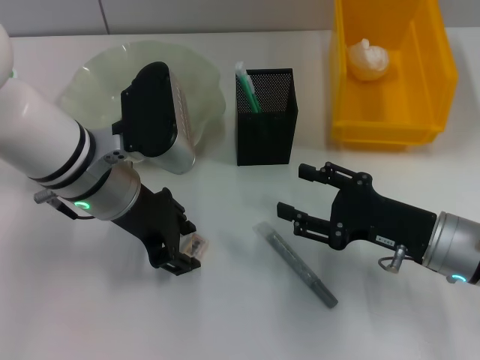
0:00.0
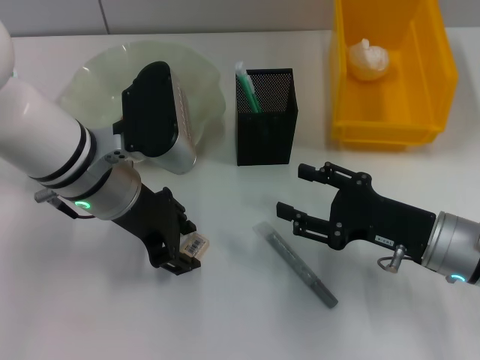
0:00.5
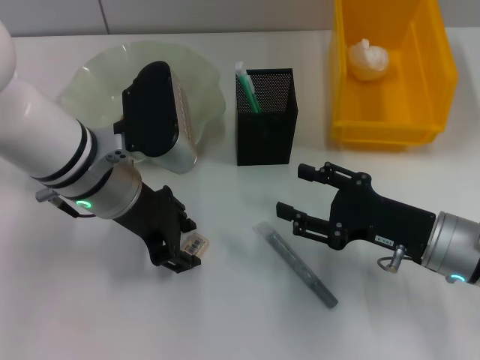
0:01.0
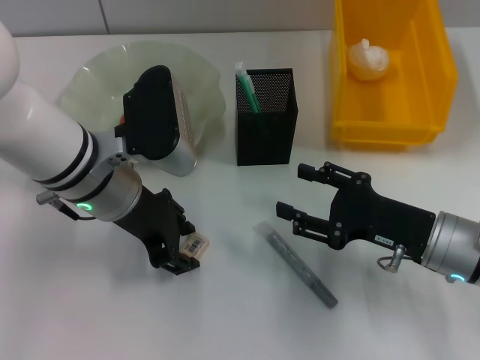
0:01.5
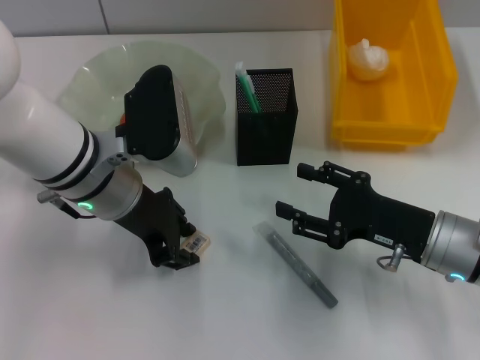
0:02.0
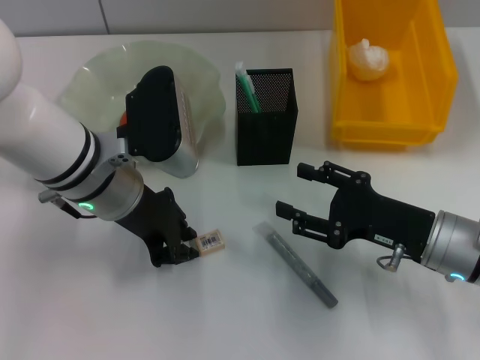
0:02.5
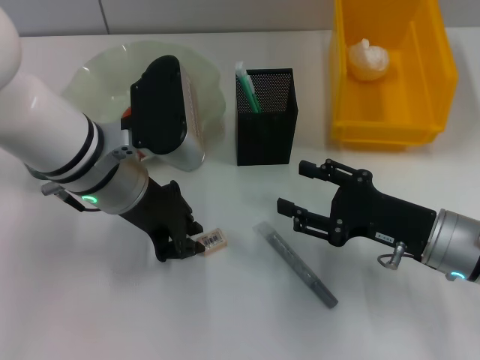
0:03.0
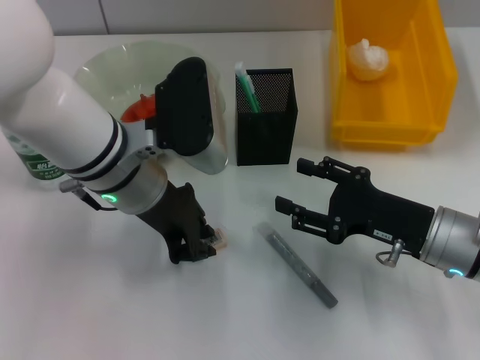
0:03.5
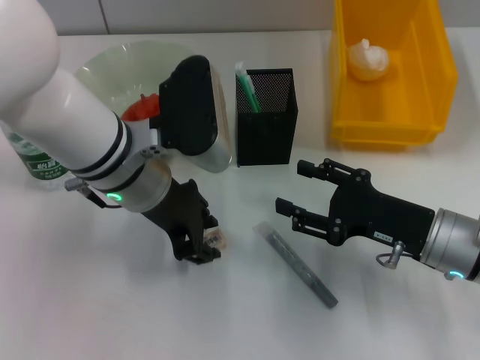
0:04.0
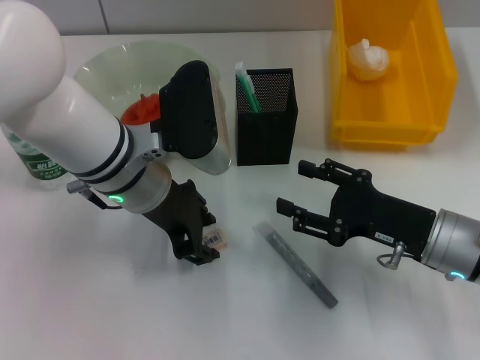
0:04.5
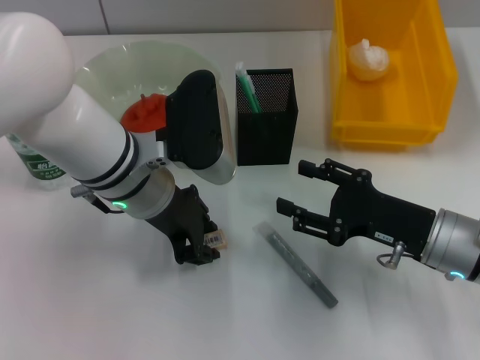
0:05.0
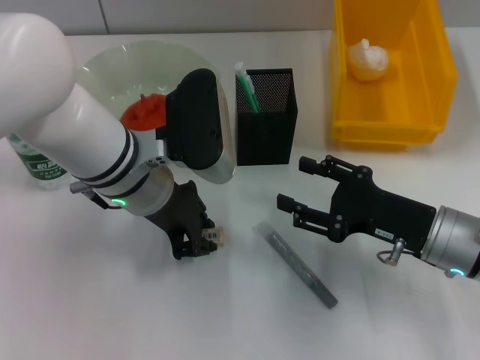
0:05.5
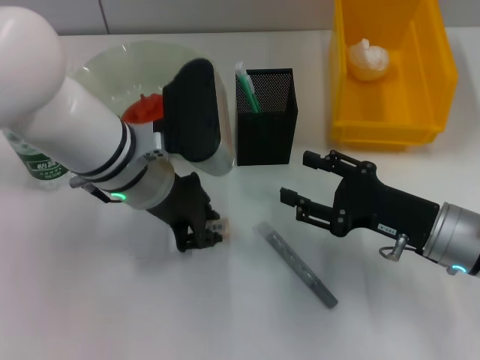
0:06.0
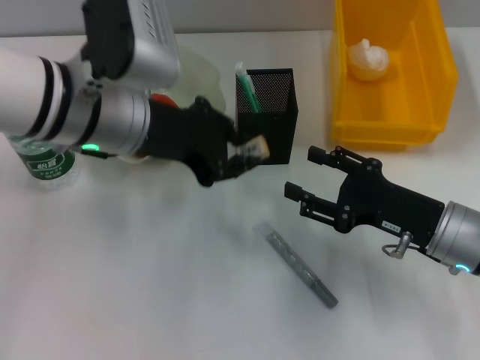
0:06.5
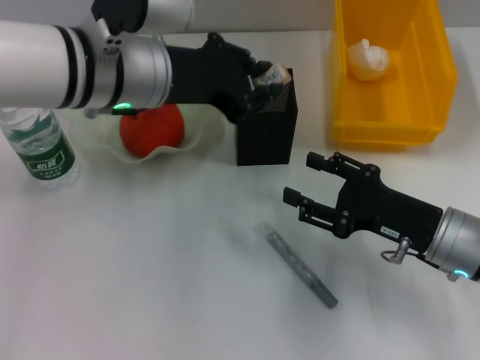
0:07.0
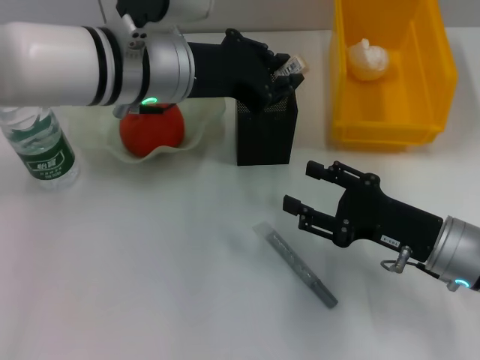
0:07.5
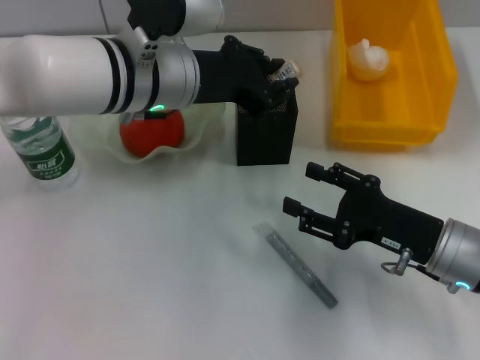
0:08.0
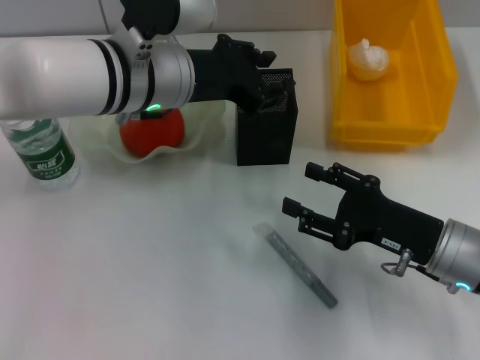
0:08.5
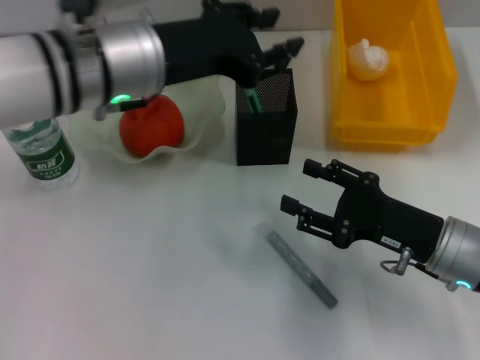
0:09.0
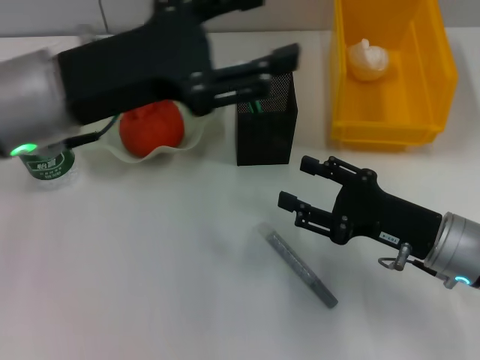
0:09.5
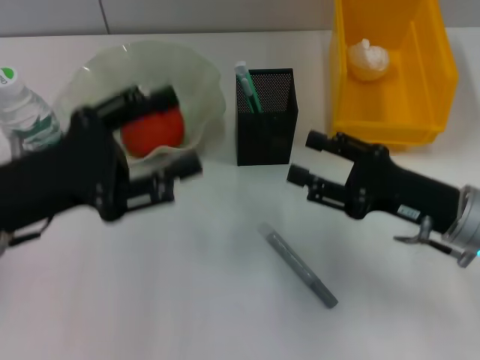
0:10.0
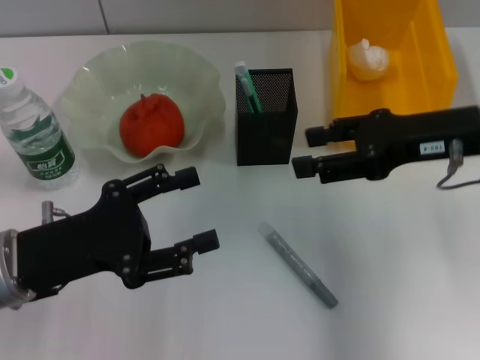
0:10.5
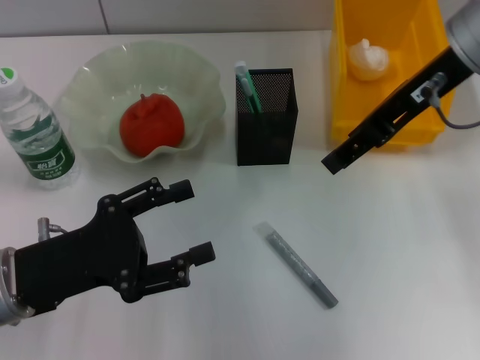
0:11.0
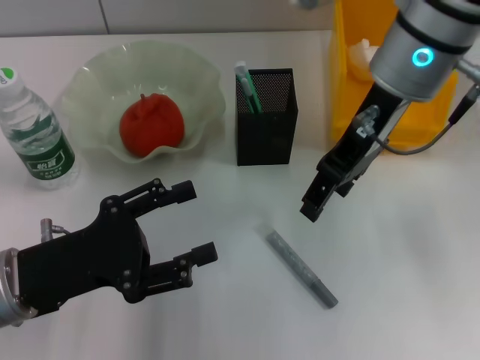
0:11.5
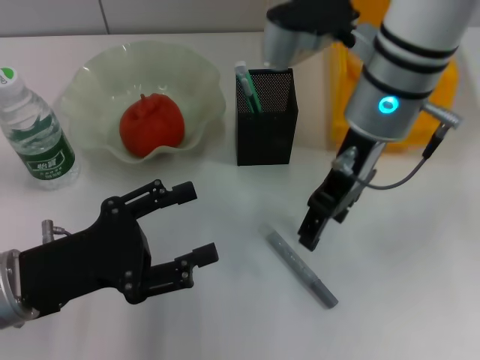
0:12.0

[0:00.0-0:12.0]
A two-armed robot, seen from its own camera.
Step, 0:00.0 to 0:05.0: Grab the eraser with the left hand.
Step, 0:05.5 to 0:08.5: Place the eraser into the pen holder with the left hand.
0:00.0 to 0:02.0: Neither gripper changes place.
0:02.0 to 0:04.0: There are only small adjustments of the grippers.
0:04.0 to 0:06.0: Both grippers stay about where they are.
0:06.0 to 0:08.0: The left gripper changes place by approximately 5 cm.
0:08.0 to 0:10.0: The left gripper goes roughly 20 cm to the left and backward, and opens.
0:10.0 to 0:12.0: The right gripper heads upward, to the left and forward, covering some 20 cm. The left gripper is displaced downward by roughly 5 cm.

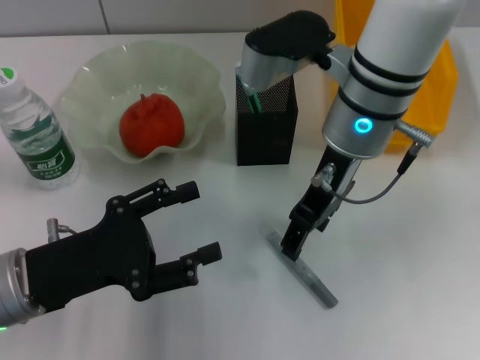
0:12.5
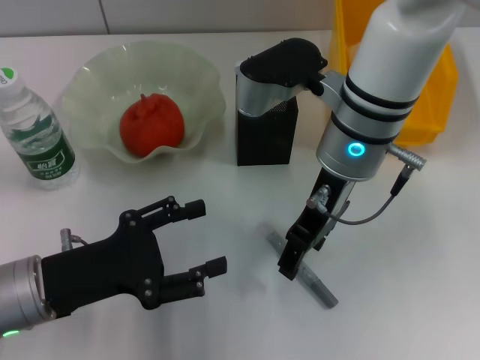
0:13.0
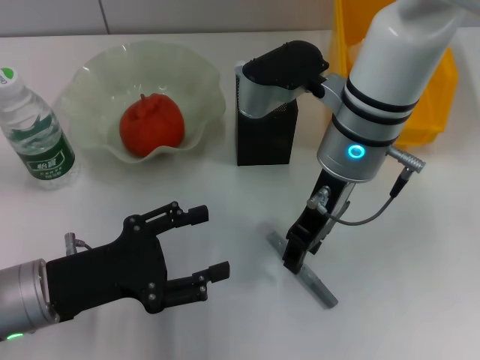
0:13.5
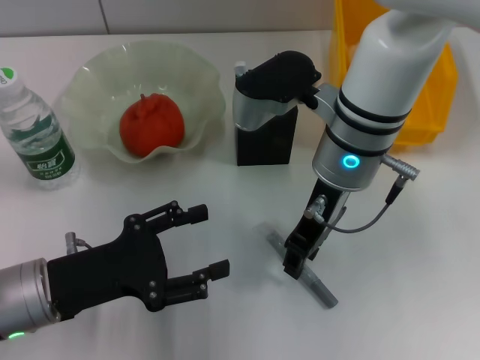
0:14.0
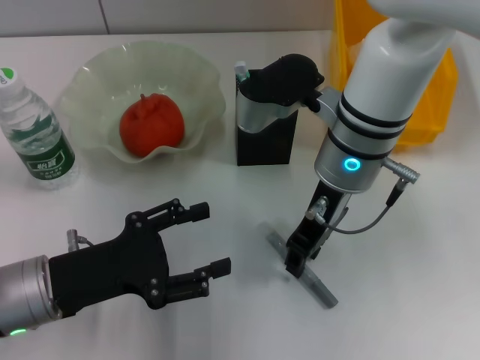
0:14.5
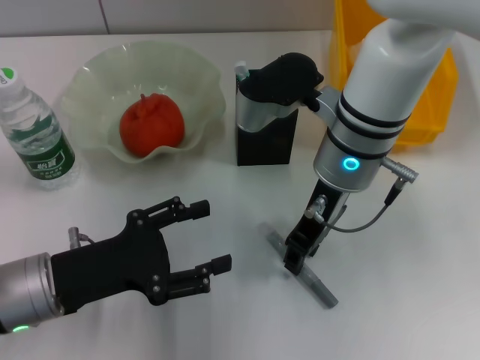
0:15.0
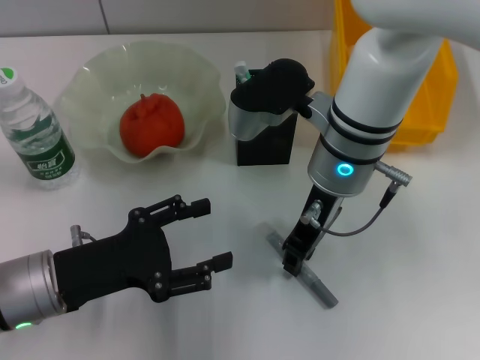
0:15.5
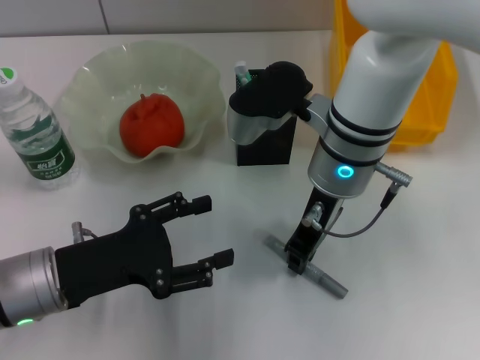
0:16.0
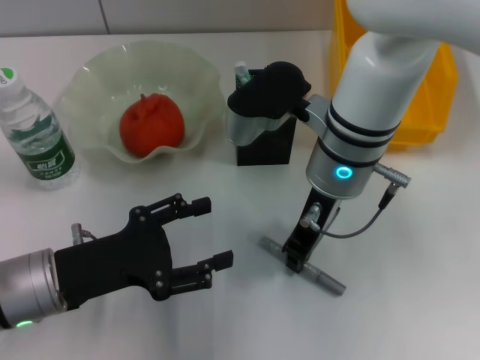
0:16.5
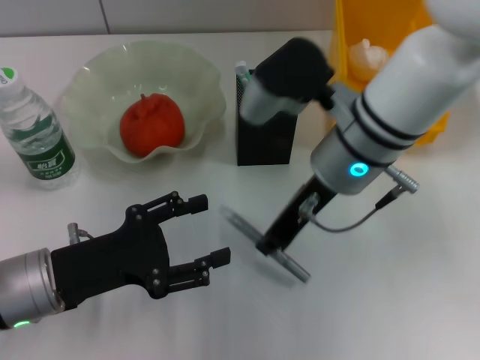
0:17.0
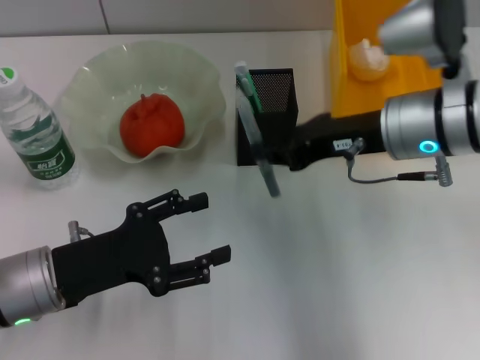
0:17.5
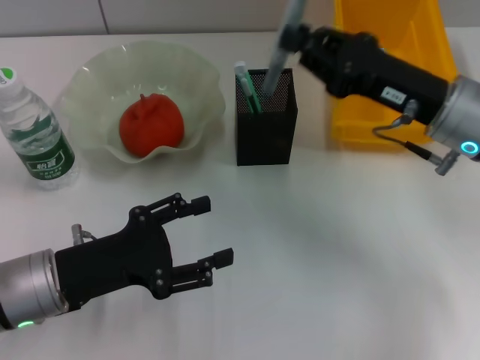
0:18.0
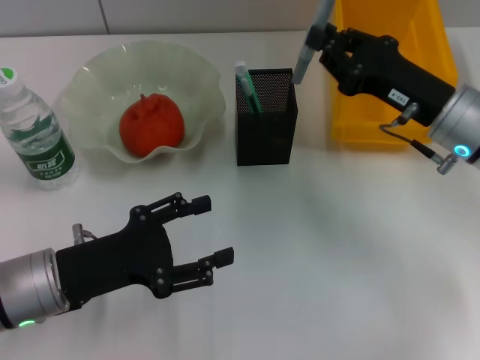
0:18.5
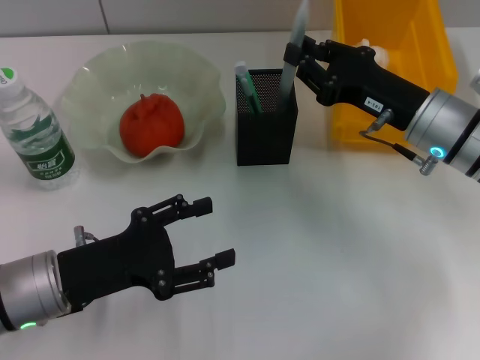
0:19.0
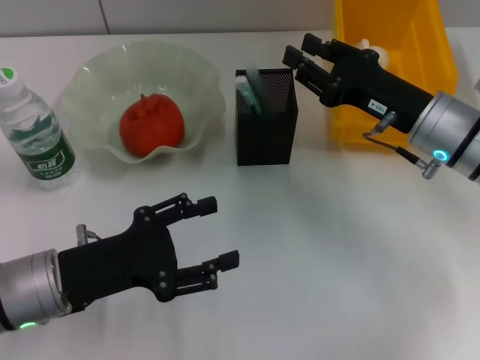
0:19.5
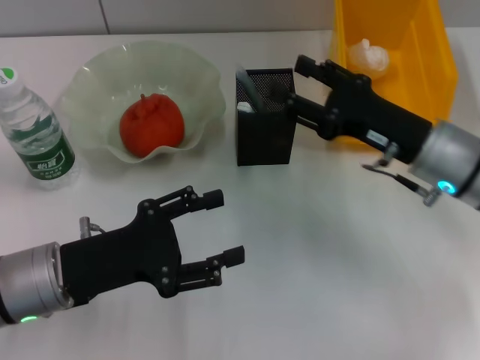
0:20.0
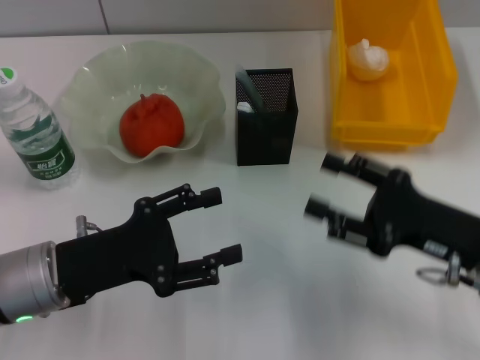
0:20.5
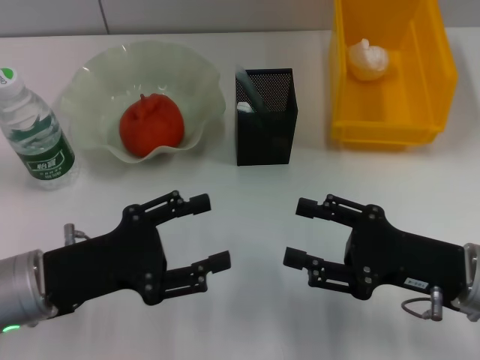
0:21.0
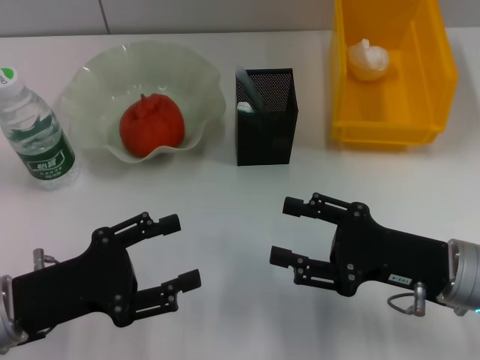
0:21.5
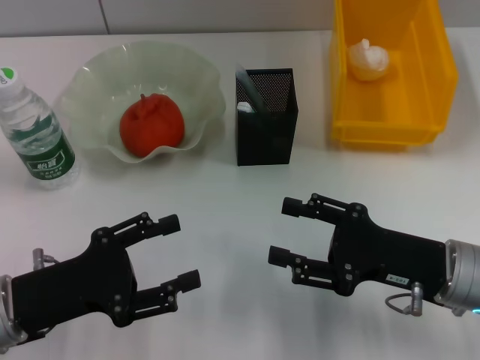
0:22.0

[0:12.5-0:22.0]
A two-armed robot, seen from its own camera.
Step, 0:12.5 to 0:16.0: Grab the gray glue with the right hand.
Step, 0:16.5 to 0:19.0: Place the gray glue into the pen holder with the right hand.
0:12.5 to 0:14.5: The right gripper closes.
0:14.5 to 0:16.5: The right gripper closes its fingers.
0:16.5 to 0:18.0: The right gripper goes approximately 15 cm to the right.
0:18.0 to 0:20.0: The right gripper opens.
0:20.0 to 0:22.0: The right gripper travels backward by approximately 10 cm.

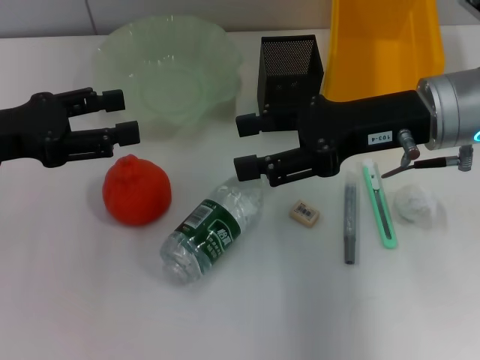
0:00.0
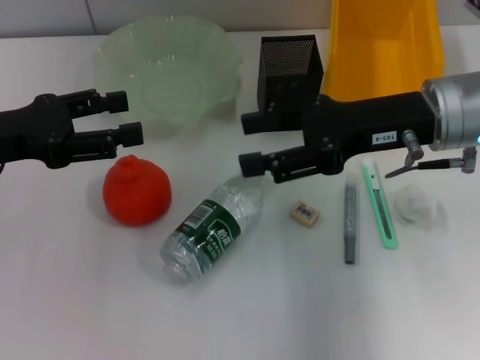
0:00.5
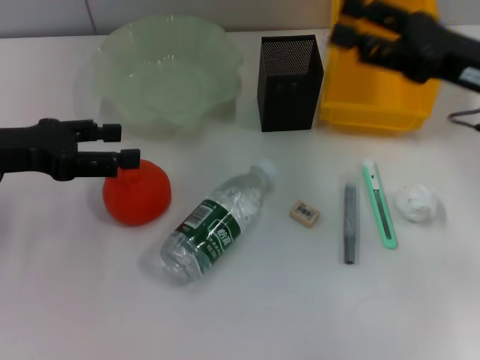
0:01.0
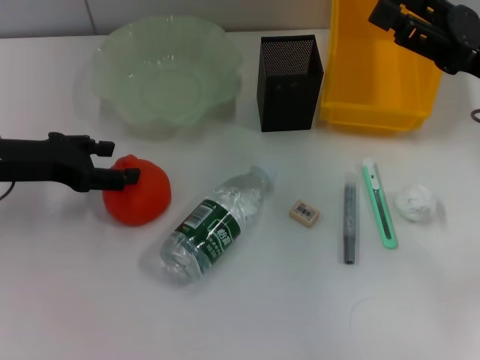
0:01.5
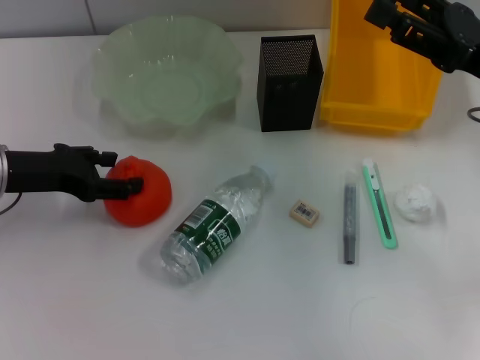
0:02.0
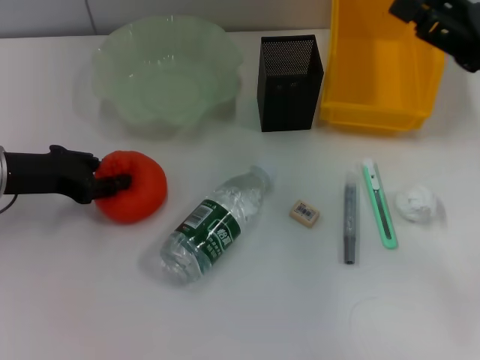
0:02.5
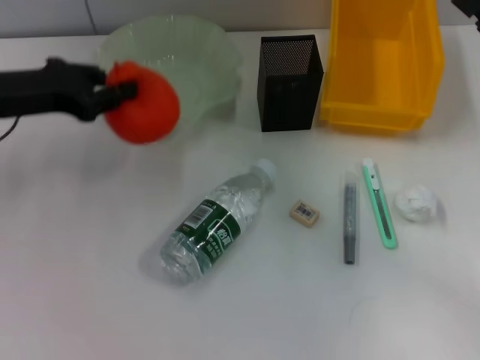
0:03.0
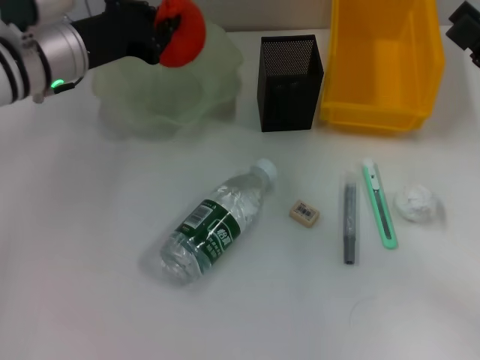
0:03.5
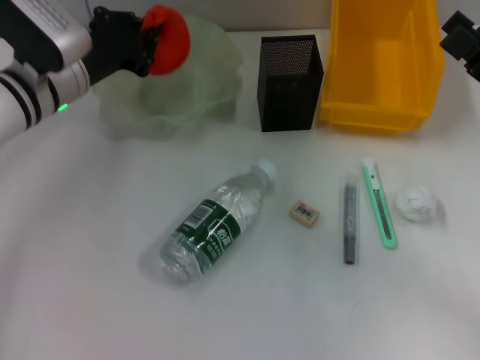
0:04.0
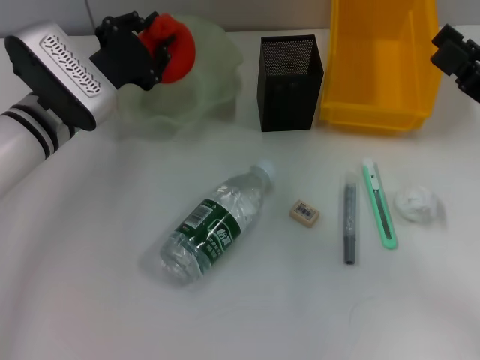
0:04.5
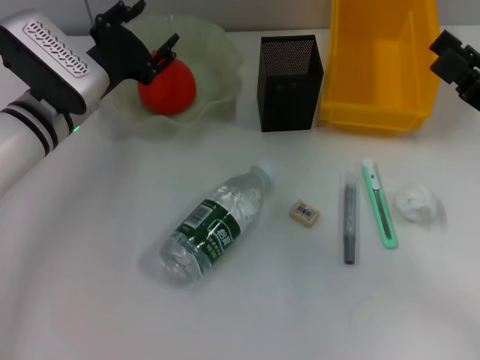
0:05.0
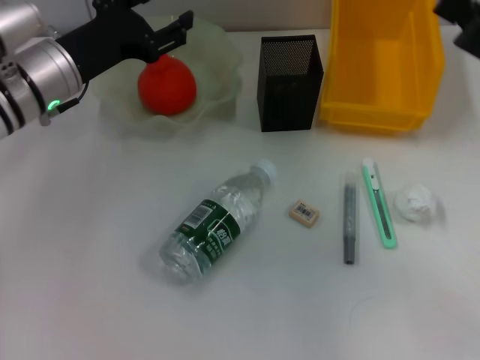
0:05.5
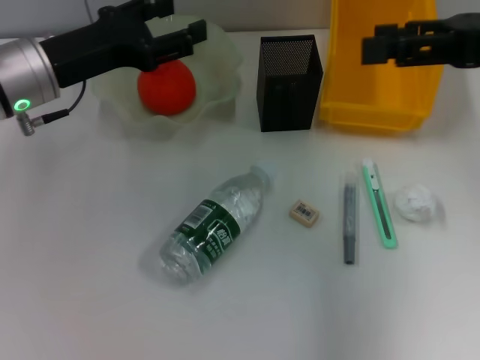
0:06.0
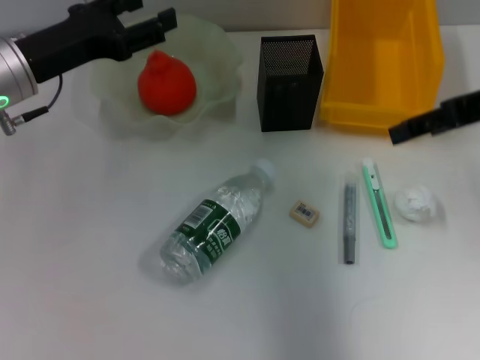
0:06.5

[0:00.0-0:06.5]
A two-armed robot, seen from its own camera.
Step, 0:00.0 to 0:02.5: Grab the orange with the left hand.
Step, 0:03.0 to 0:05.0: Place the orange into the fruit bowl with the left hand.
0:00.0 to 0:02.0: The left gripper changes place by about 5 cm; the right gripper heads to the right, covering about 10 cm.
0:02.0 to 0:04.5: The right gripper goes about 5 cm backward; the left gripper is displaced to the right and forward by approximately 10 cm, and closes.
0:04.5 to 0:06.5: The left gripper heads upward, covering some 5 cm, and opens up. The right gripper shifts approximately 15 cm upward and forward.
